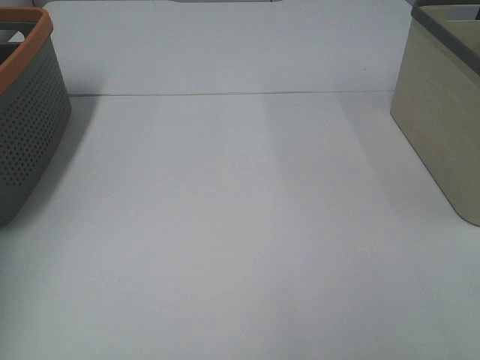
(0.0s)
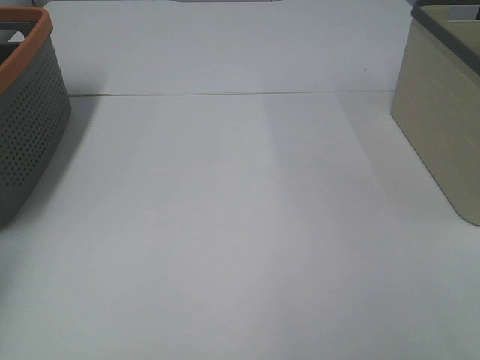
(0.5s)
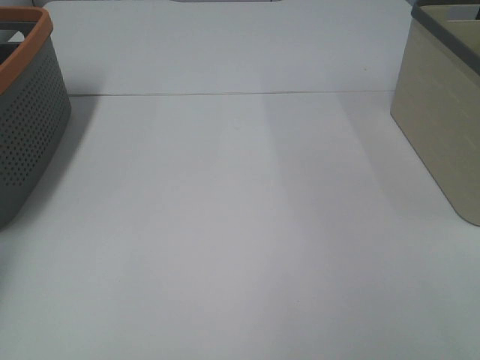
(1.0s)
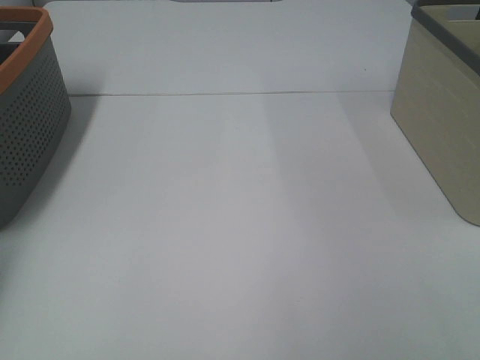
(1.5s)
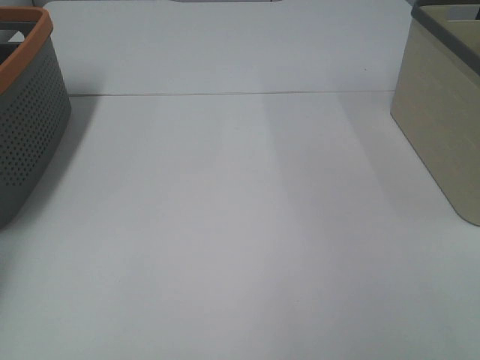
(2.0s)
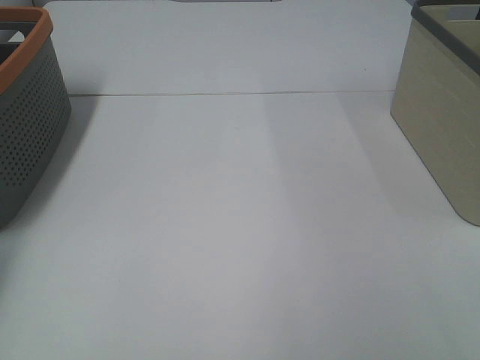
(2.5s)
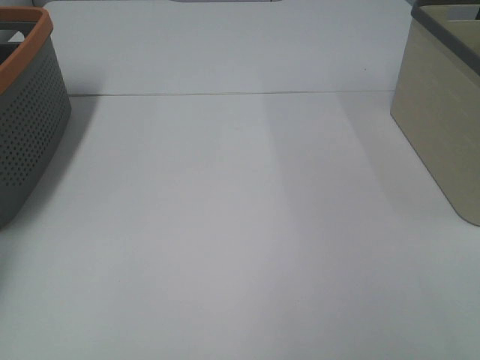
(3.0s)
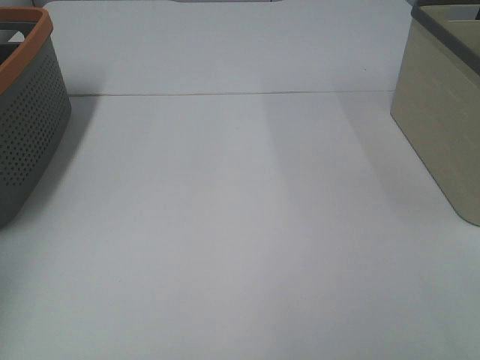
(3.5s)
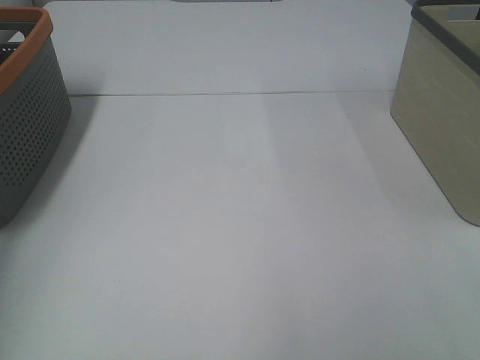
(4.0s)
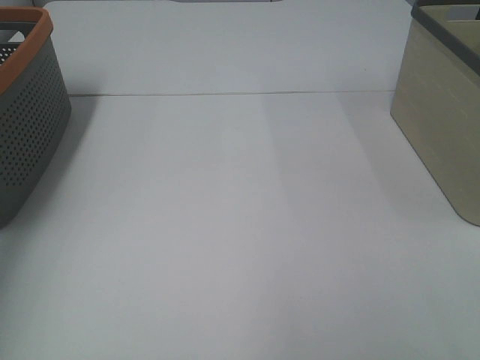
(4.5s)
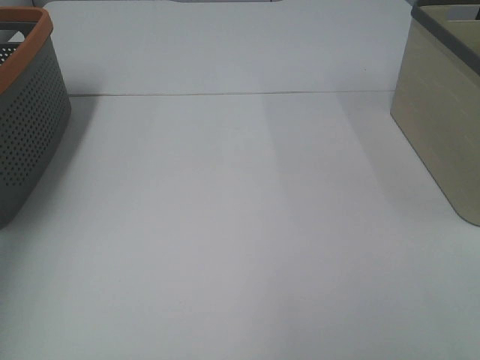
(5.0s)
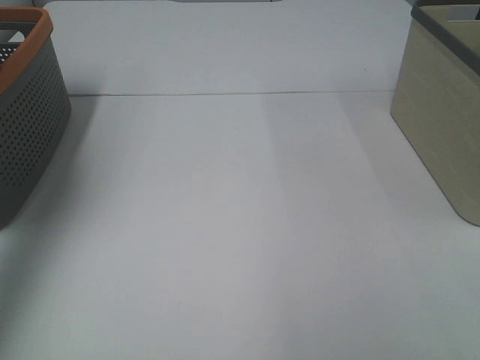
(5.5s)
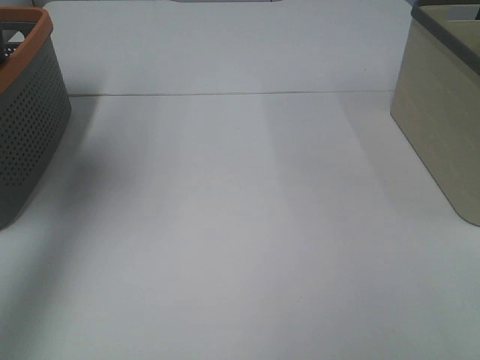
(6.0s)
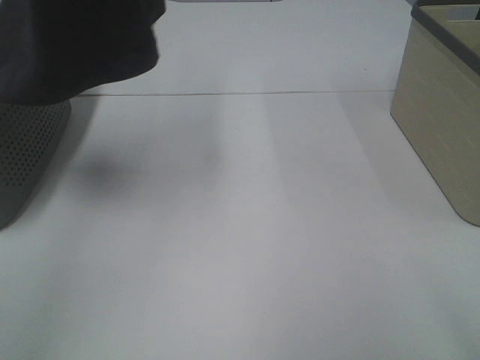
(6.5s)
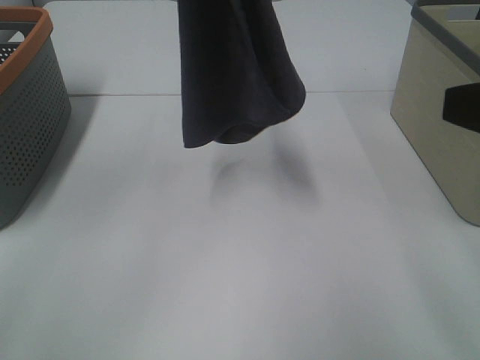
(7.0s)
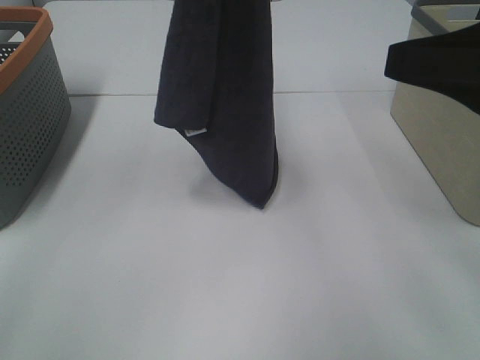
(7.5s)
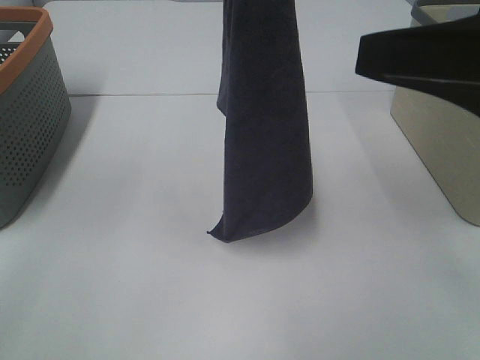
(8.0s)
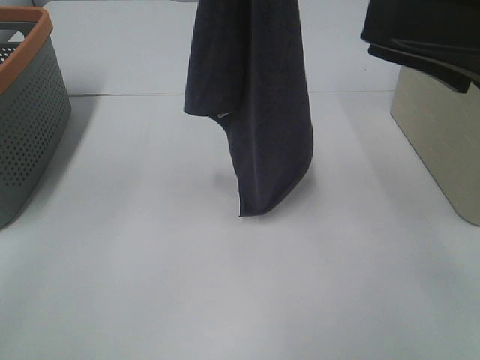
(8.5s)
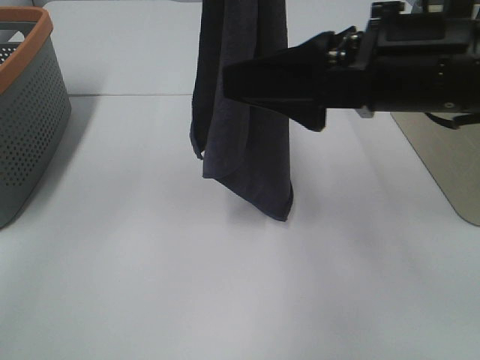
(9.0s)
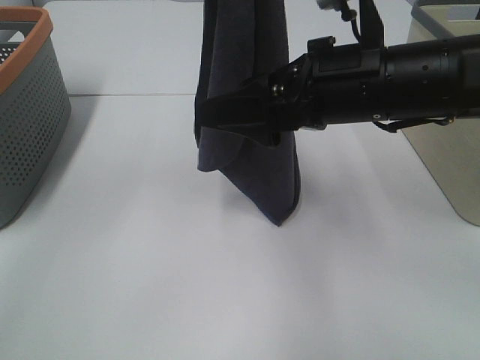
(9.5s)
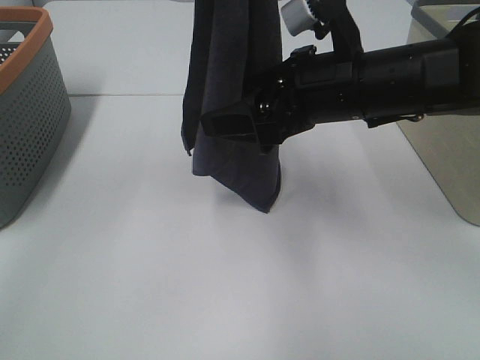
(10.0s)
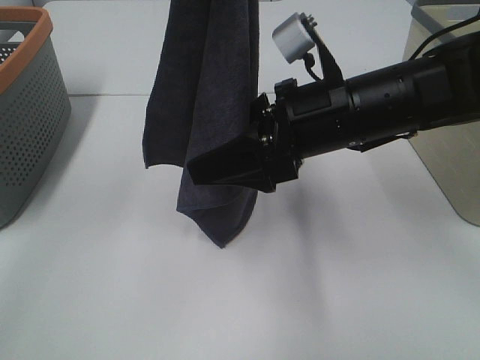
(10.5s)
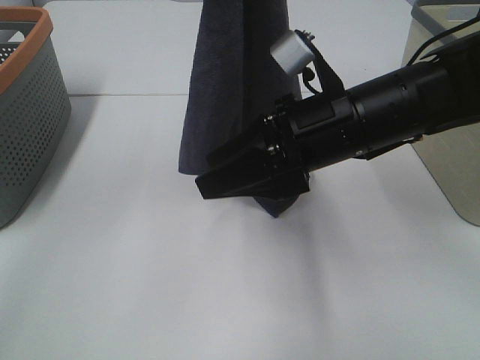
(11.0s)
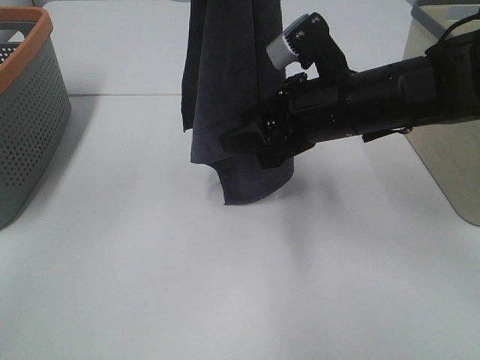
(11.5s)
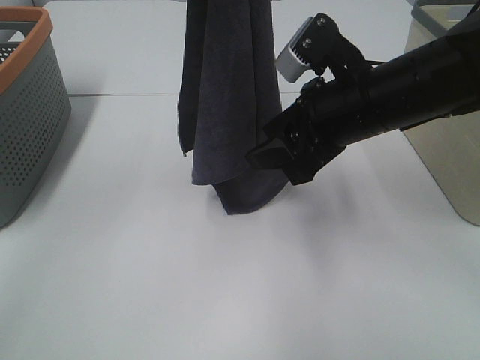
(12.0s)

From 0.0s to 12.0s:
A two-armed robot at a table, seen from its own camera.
Task of the whole recording: Remove the towel and place it.
From 4.0s to 6.0s: The left gripper is displaced to the right and upward by roughly 15 cm.
From 6.0s to 8.0s: The left gripper travels to the right by roughly 20 cm; the right gripper moves forward, about 20 cm.
From 8.0s to 10.0s: The right gripper is displaced forward, to the left and downward by approximately 20 cm.
From 10.0s to 12.0s: The right gripper closes up.

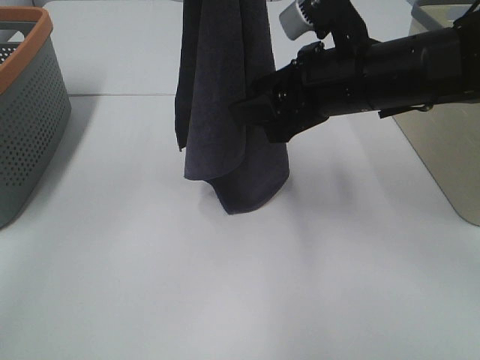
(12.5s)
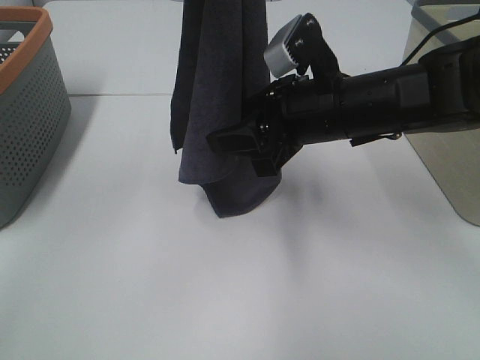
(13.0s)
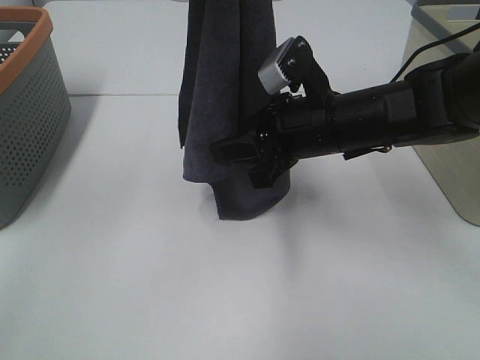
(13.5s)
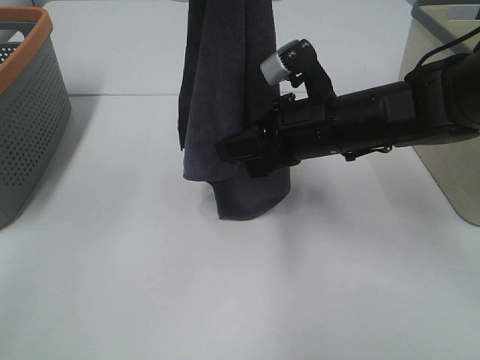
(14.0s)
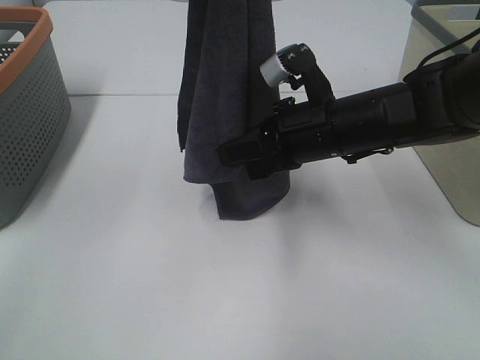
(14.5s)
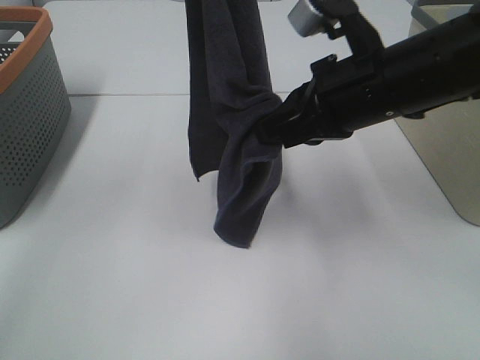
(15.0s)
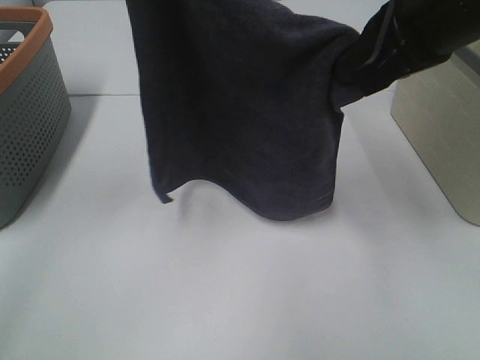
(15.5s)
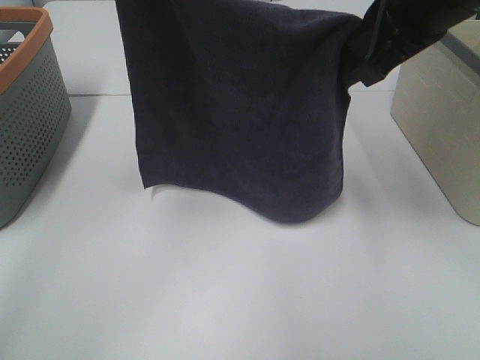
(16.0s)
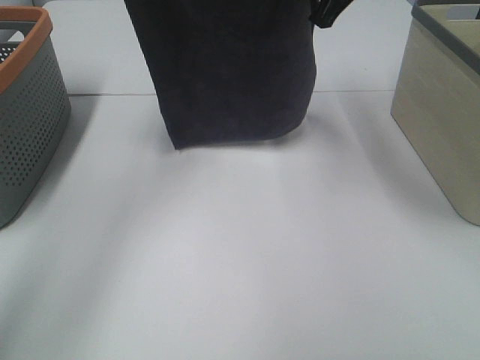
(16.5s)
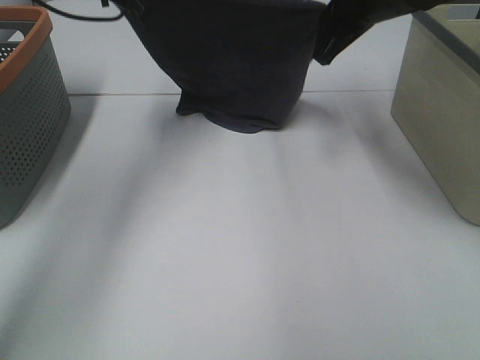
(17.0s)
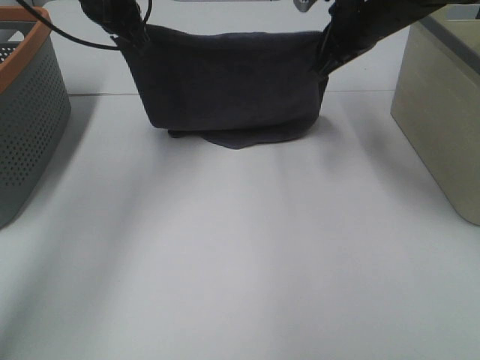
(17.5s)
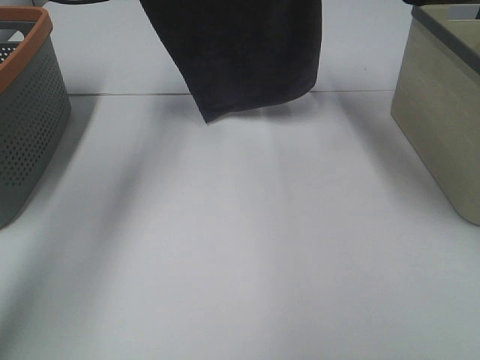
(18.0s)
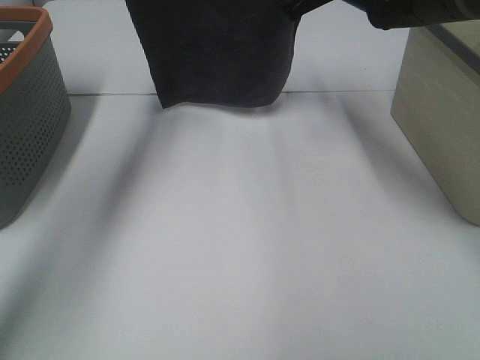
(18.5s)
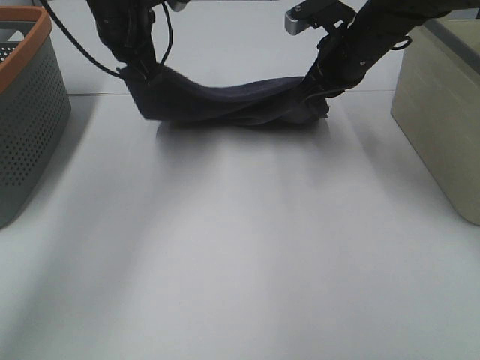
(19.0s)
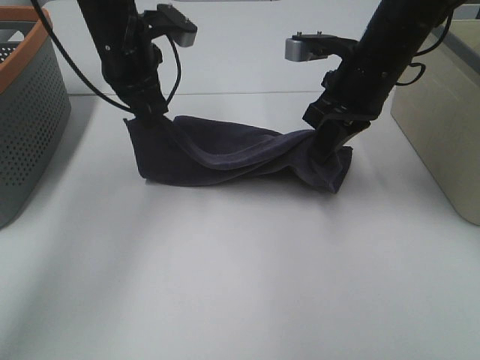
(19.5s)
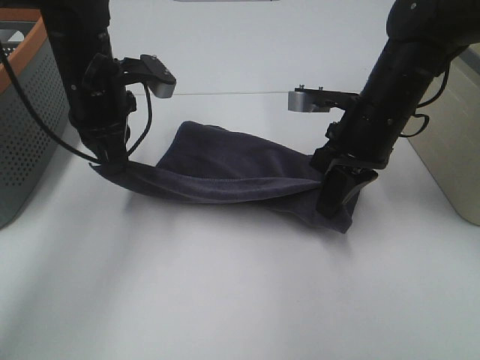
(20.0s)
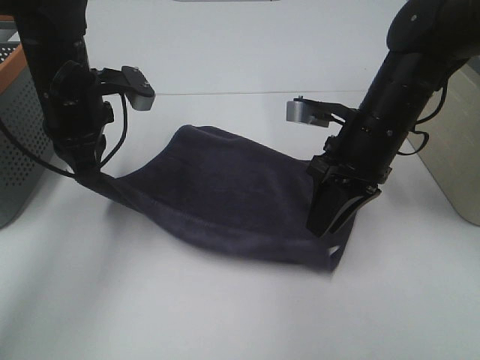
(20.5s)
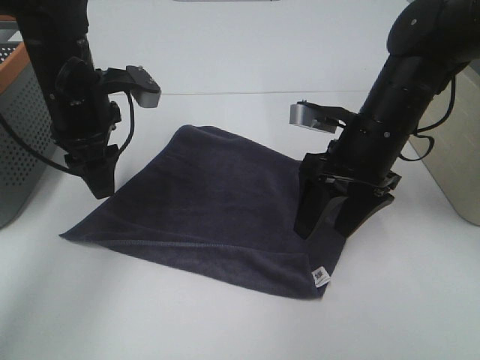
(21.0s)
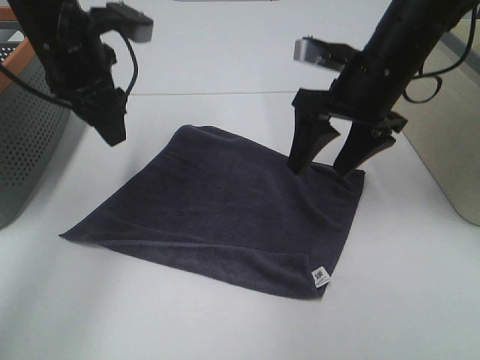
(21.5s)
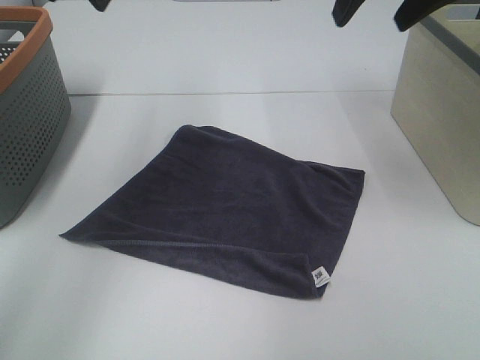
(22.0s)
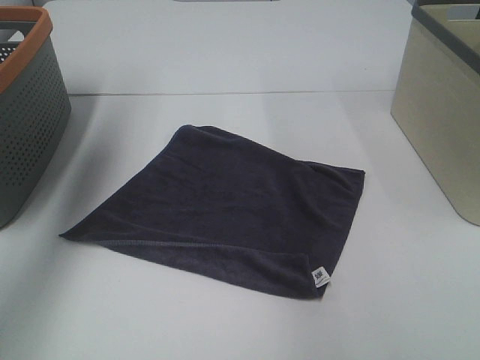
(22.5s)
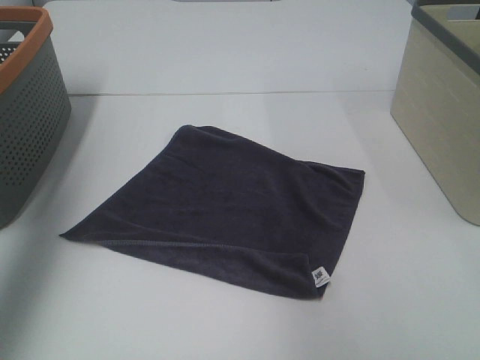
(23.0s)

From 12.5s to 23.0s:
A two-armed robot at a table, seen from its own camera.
Task of the whole recording: Remove the towel and place it.
Step, from 12.5s to 15.0s: Right hand: spread the grey towel flat on the table.
Step, from 12.5s to 15.5s: Left hand: spread the grey towel flat on the table.
From 12.5s to 14.5s: The right gripper heads downward, covering about 5 cm, and closes up.
From 14.5s to 16.5s: The right gripper is displaced upward and forward by approximately 20 cm. The left gripper travels forward, downward and to the left by approximately 20 cm.
From 16.5s to 19.0s: The left gripper moves up and down over approximately 10 cm, changing direction 2 times. Meanwhile the right gripper moves up and down over roughly 10 cm, changing direction 2 times.
From 19.0s to 21.0s: Both grippers move backward and downward, approximately 10 cm. The right gripper opens its fingers, while the left gripper opens.
From 21.0s to 23.0s: The left gripper goes some 30 cm upward, to the left and backward; the right gripper is displaced upward, backward and to the right by approximately 30 cm.

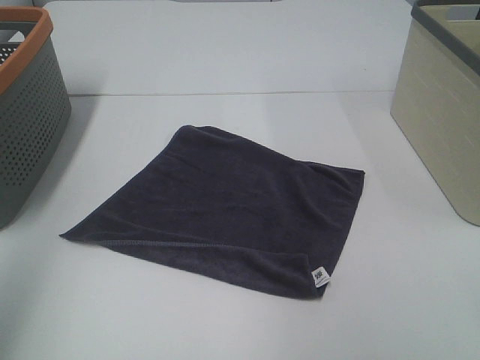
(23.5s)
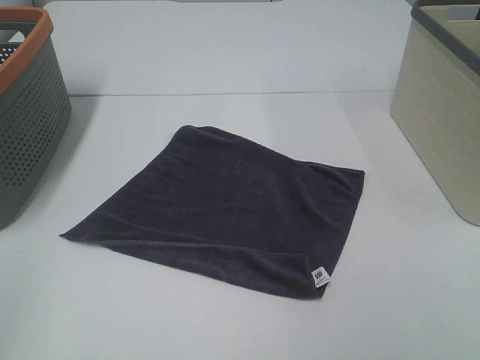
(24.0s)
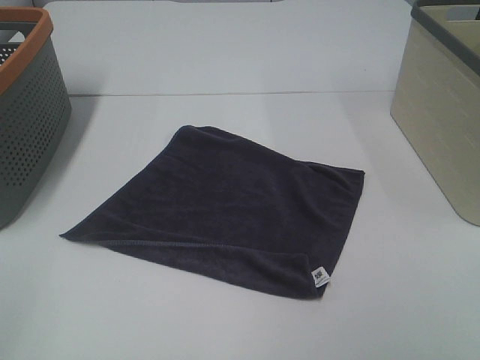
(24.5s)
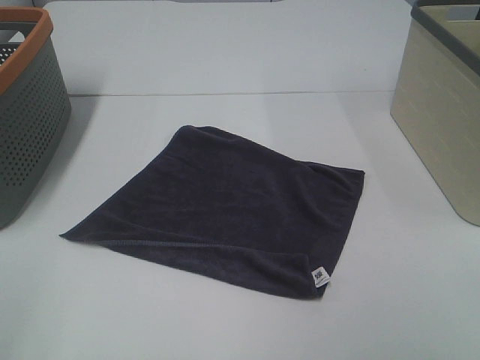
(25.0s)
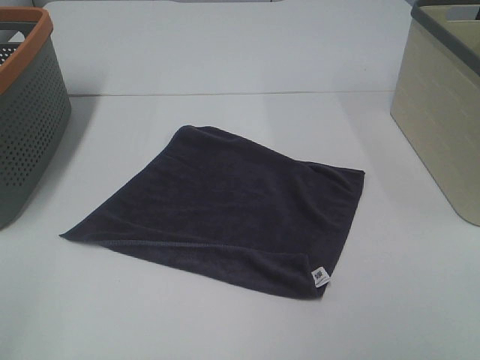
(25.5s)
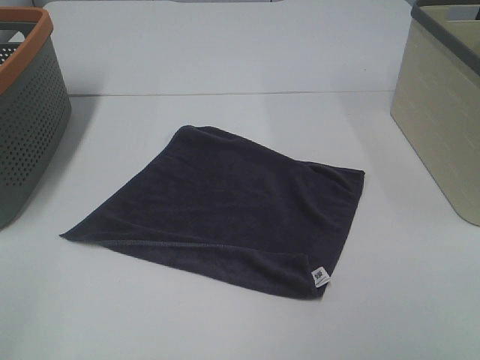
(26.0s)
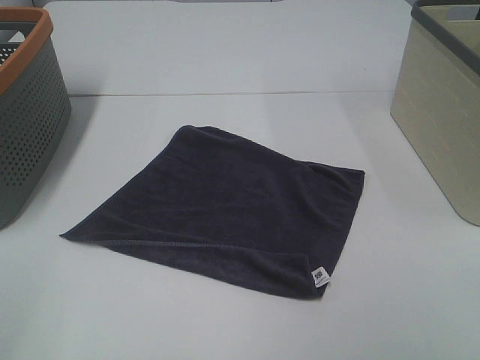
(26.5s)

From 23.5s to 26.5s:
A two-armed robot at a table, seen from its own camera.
Task of the whole recording: Remove the towel and place it.
From 25.0s to 26.5s: The two grippers keep their place.
